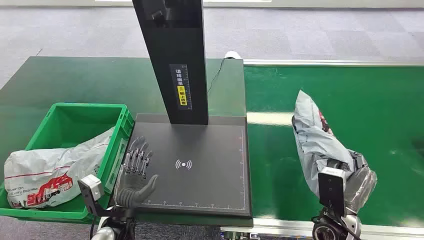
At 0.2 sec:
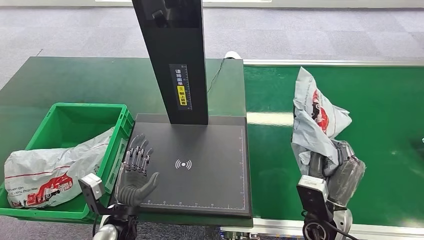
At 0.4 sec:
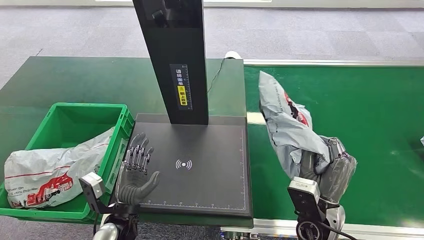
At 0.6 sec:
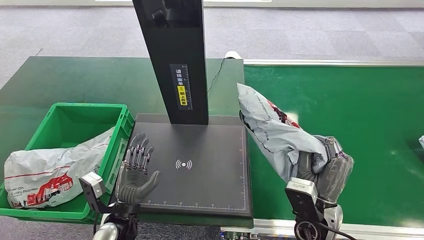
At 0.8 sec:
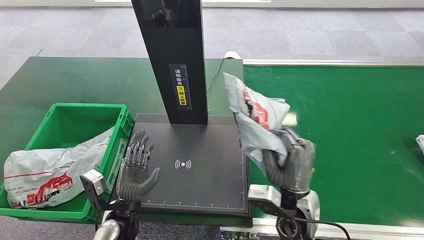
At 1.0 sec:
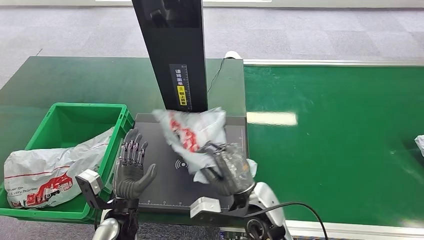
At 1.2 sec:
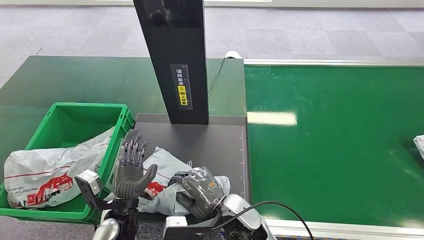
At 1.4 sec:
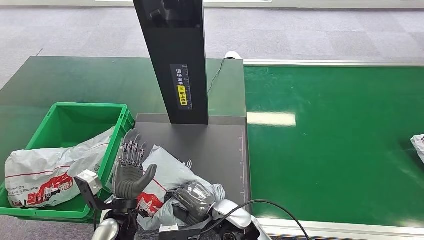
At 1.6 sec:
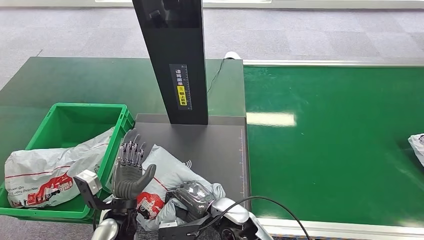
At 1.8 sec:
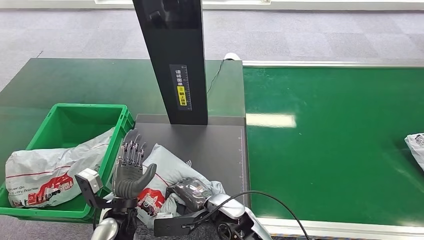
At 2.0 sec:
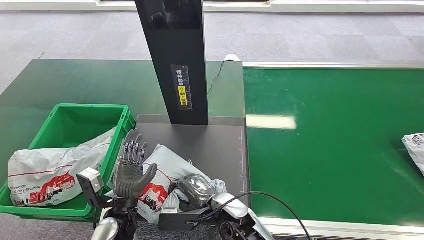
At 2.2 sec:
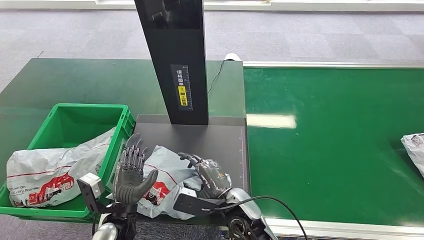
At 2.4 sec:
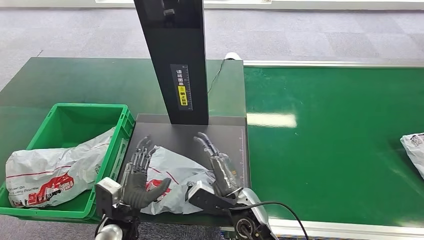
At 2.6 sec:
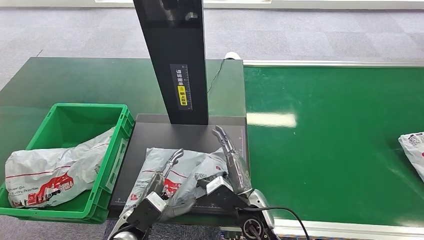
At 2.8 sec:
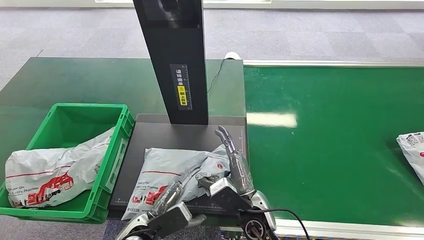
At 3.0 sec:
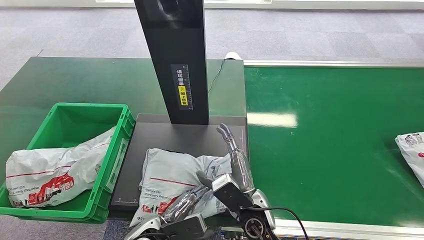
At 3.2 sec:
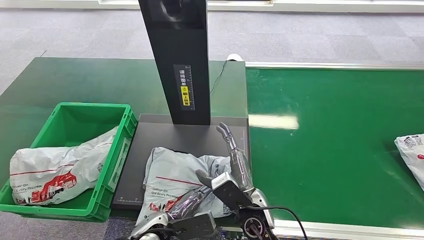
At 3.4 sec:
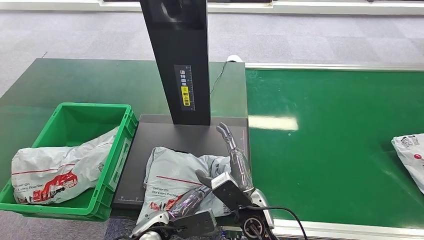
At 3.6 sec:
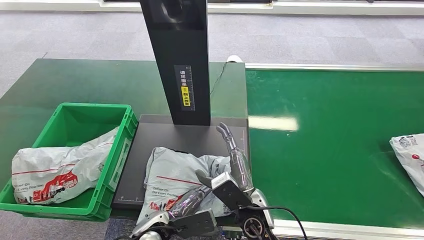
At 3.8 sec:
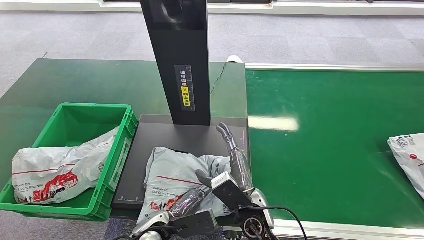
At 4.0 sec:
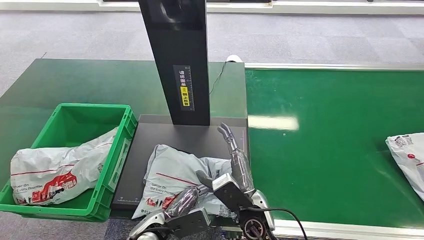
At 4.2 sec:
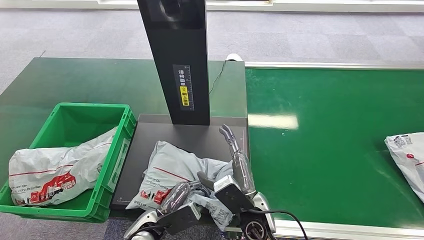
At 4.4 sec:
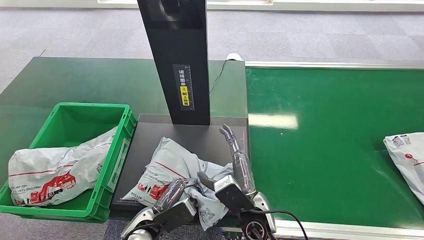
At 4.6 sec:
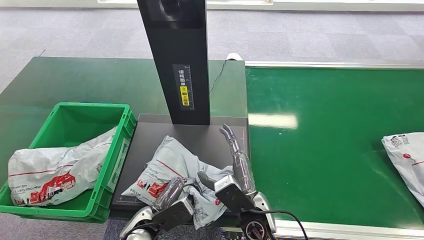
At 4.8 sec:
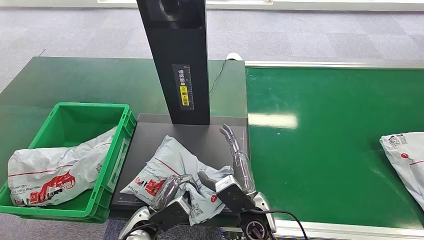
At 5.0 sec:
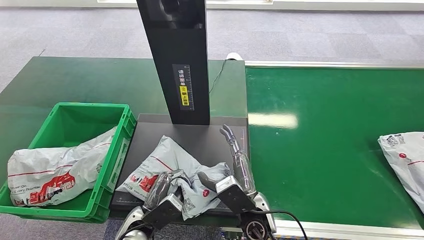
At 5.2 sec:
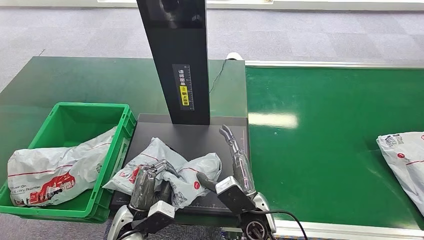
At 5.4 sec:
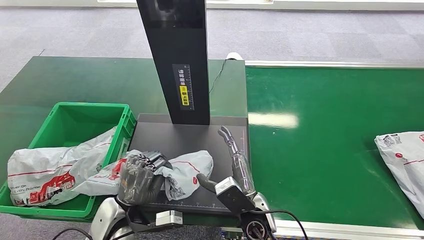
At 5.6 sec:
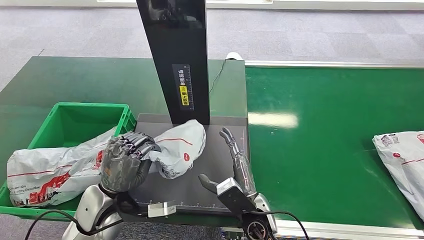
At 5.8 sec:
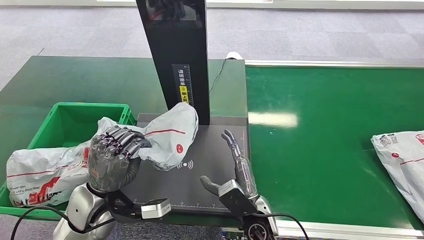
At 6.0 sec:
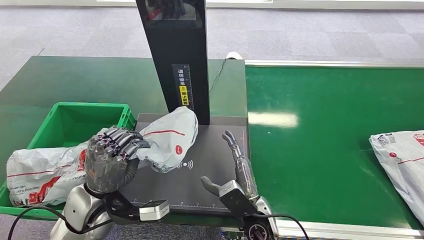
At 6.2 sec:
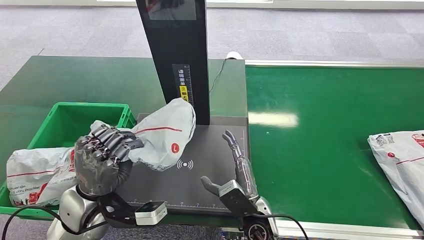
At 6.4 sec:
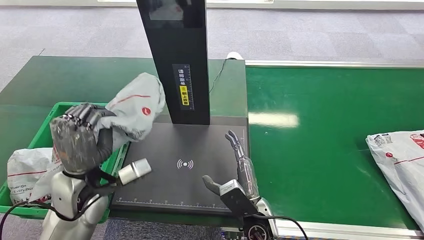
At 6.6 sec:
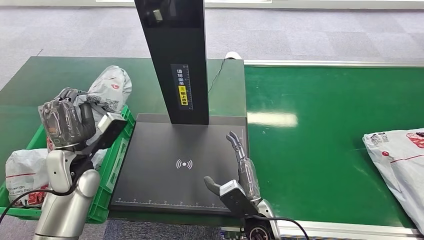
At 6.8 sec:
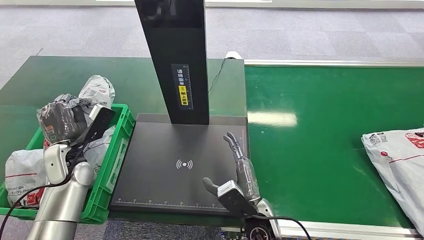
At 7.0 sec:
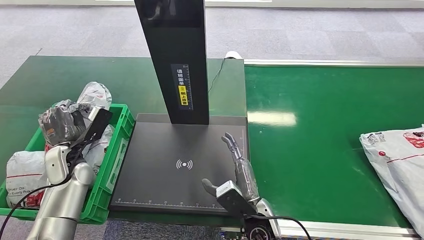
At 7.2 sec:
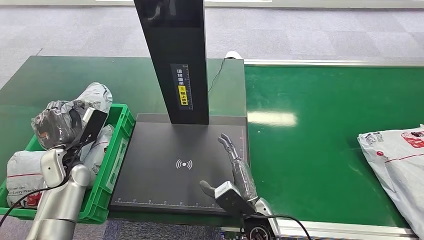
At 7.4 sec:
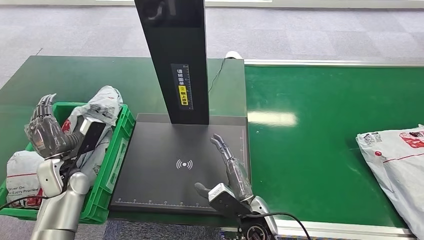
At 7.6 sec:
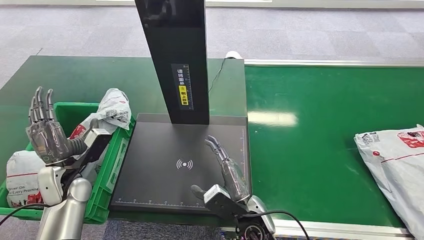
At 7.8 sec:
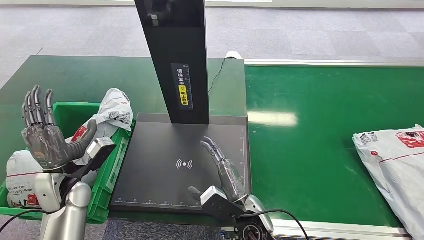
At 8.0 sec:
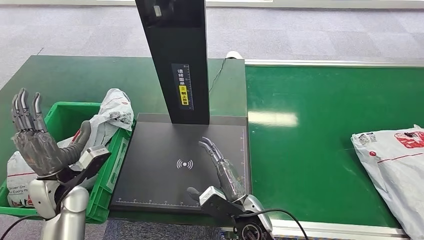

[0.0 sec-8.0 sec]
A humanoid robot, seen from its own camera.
Task of the whole recording: Weigh the package on the weighing device and place it in the left basket.
Step, 0.0 sec to 0.2 sec: Pick up the package from the conveyor belt.
Step, 3.2 sec to 3.4 sec: Place the package onto the inbound machine.

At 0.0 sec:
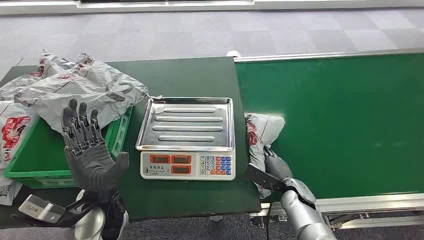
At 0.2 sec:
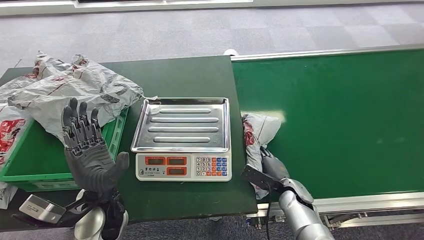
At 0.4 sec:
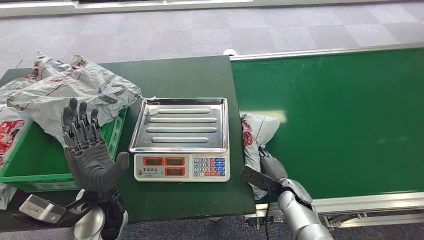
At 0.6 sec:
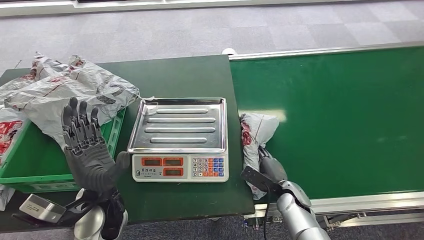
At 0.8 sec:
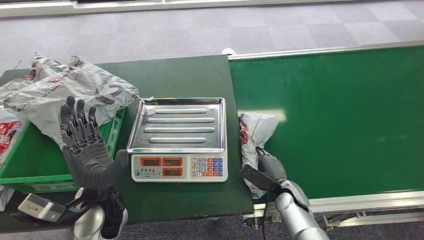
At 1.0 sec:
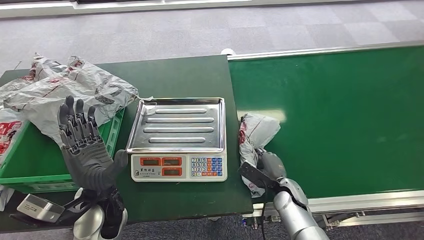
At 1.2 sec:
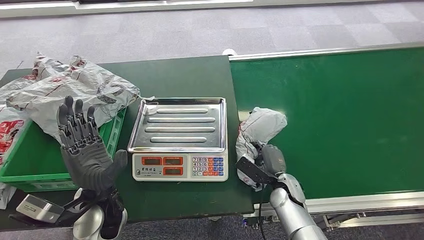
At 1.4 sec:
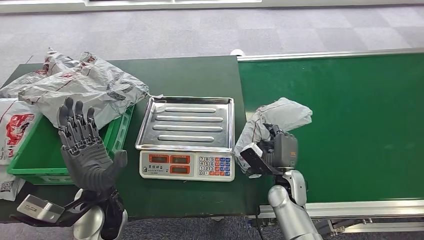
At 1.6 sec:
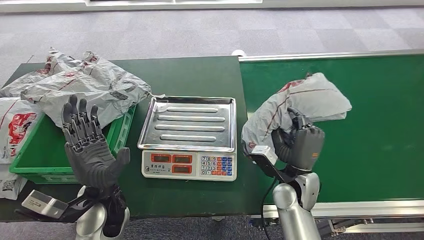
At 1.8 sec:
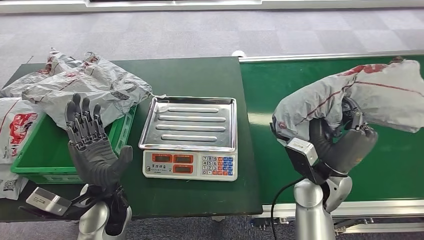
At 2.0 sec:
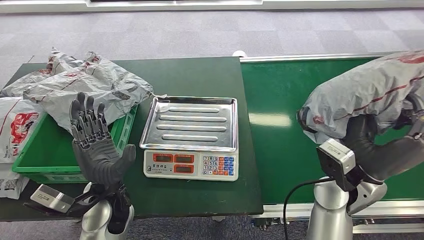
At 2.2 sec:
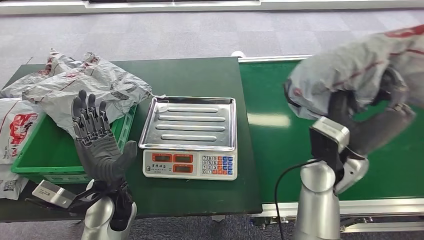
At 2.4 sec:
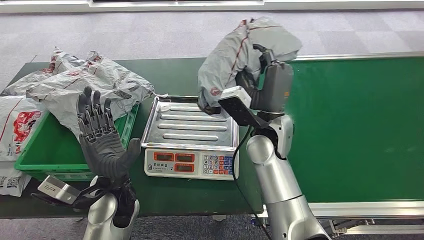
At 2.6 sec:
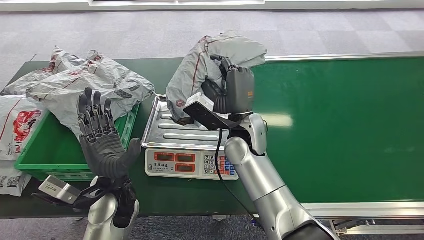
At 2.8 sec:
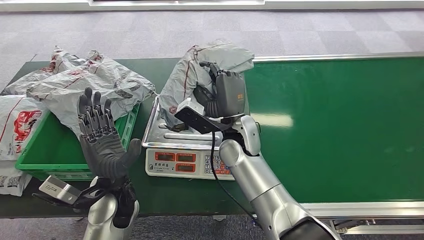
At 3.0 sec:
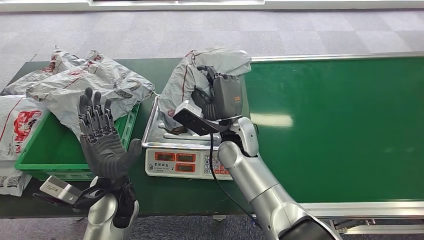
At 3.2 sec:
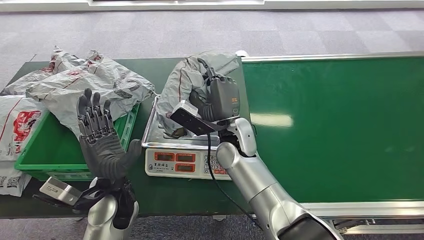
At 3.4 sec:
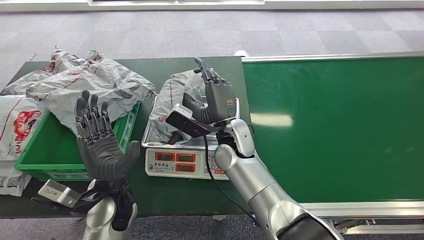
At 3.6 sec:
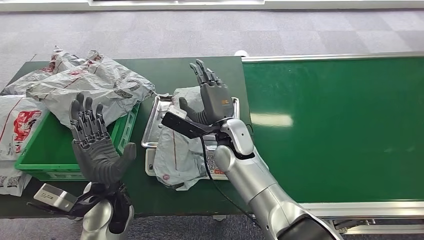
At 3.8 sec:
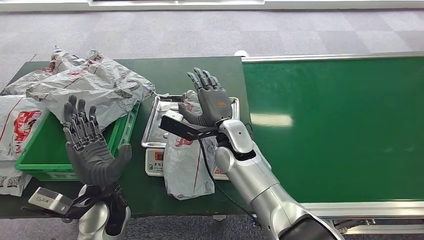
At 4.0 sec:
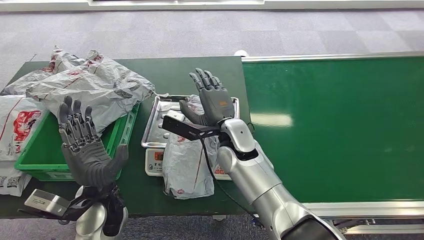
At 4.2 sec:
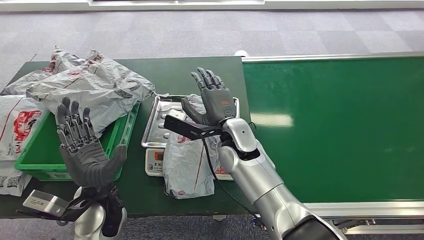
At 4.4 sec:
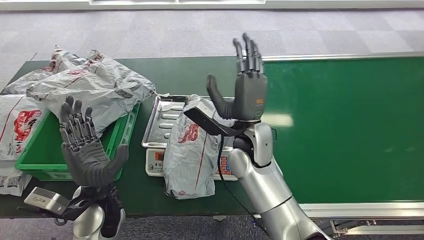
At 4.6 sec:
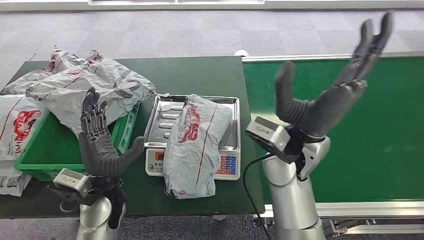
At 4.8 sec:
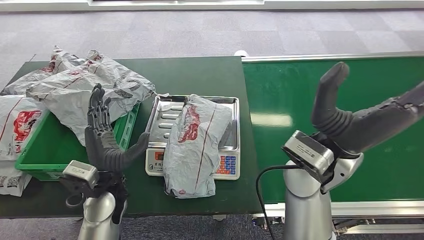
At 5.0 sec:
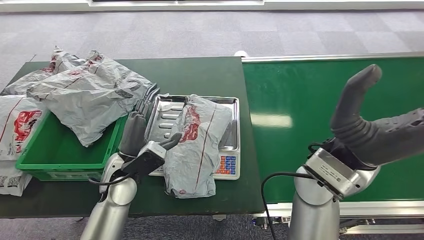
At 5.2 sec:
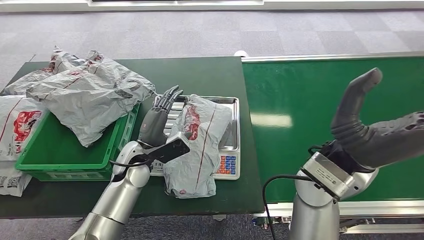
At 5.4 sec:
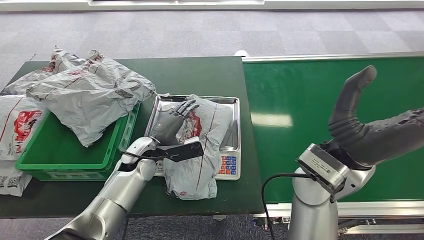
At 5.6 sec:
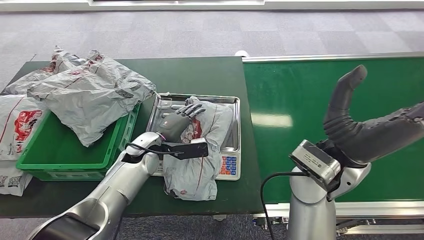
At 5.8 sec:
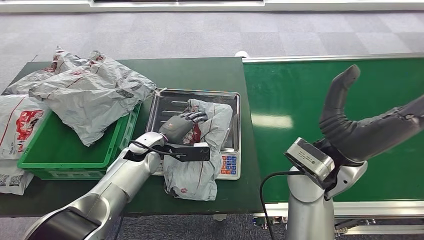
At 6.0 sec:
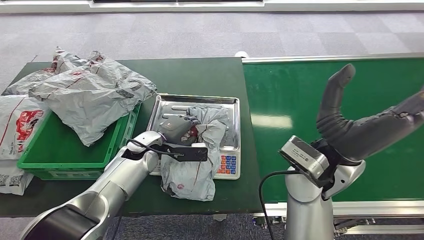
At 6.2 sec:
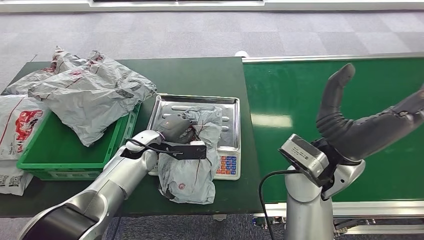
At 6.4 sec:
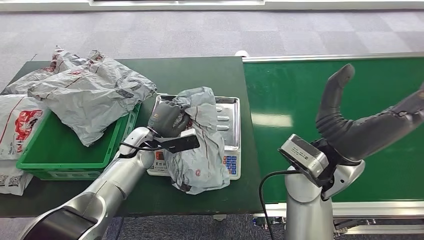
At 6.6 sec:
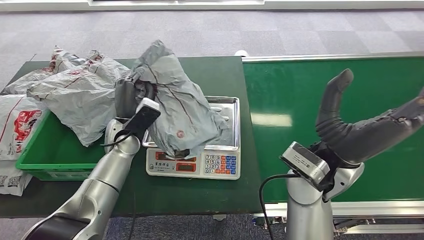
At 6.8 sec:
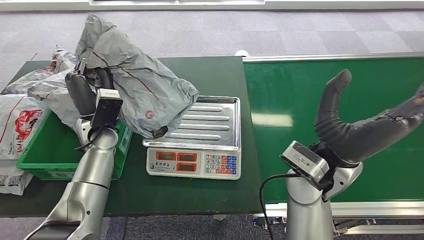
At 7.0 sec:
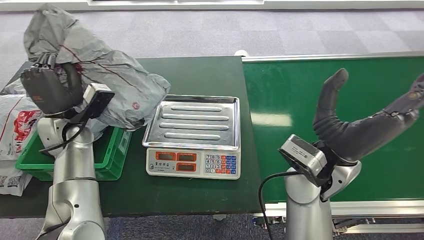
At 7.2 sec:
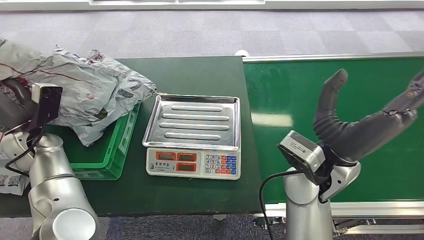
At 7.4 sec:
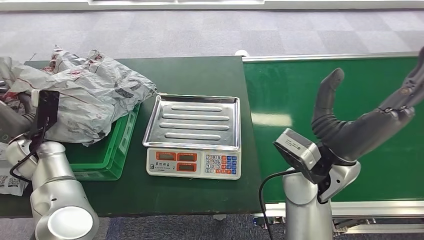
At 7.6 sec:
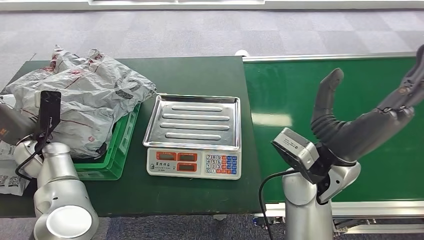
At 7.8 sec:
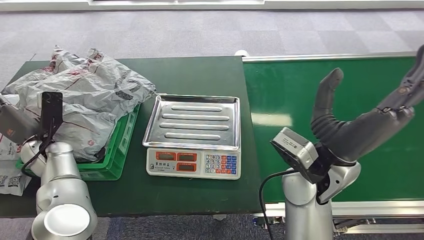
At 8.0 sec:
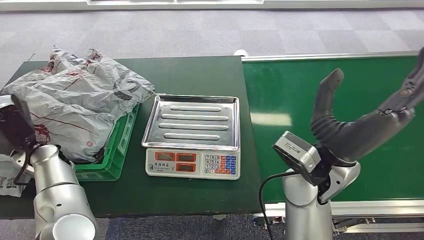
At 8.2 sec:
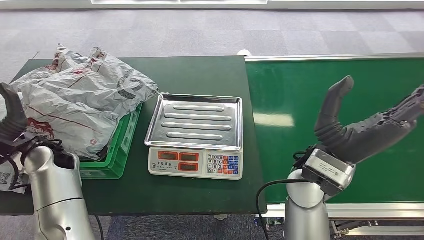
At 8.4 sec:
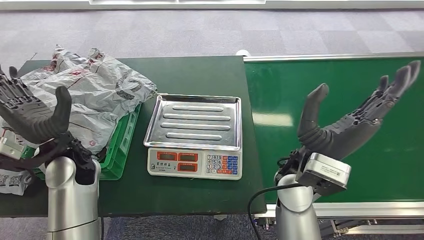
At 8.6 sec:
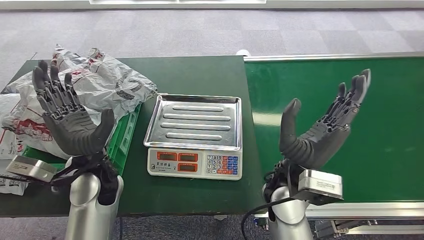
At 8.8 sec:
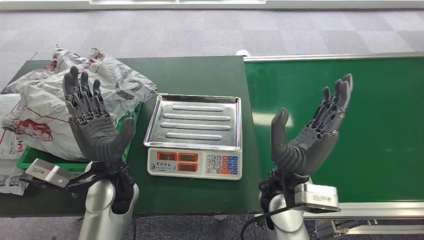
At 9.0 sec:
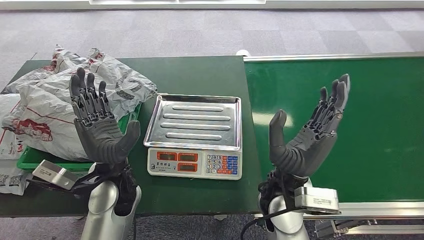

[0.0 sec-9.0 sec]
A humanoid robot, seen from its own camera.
Task of the whole recording: Weigh the package on the weighing device and place it in the left basket.
Step, 0.0 sec to 2.0 sec: Pick up the package from the conveyor belt.
Step, 2.2 sec to 5.0 sec: Place the package onto the inbound machine.
Step, 5.2 sec to 6.8 sec: Pick up the package from the inbound machine.
Step, 7.0 sec to 9.0 sec: Place the package into the parcel locker.
